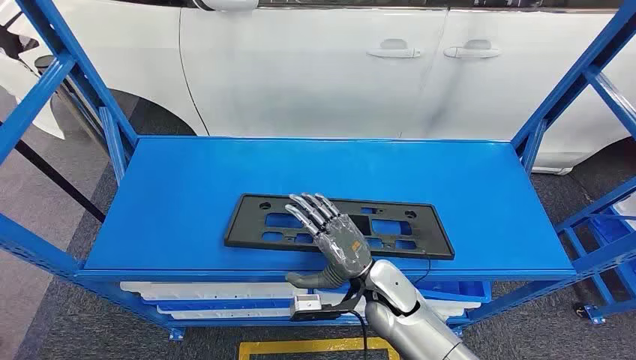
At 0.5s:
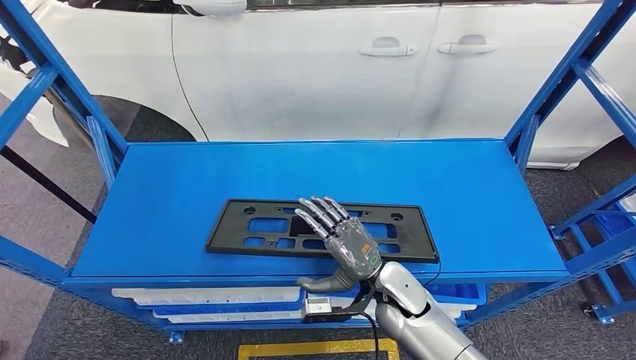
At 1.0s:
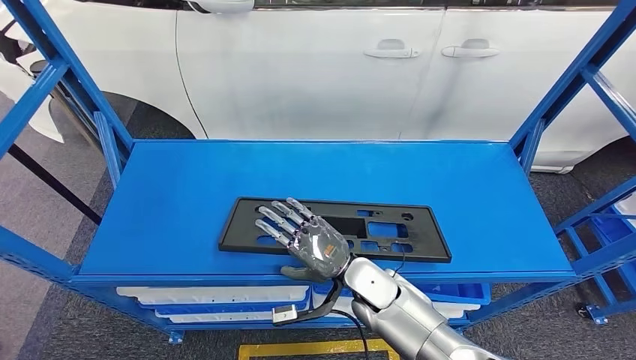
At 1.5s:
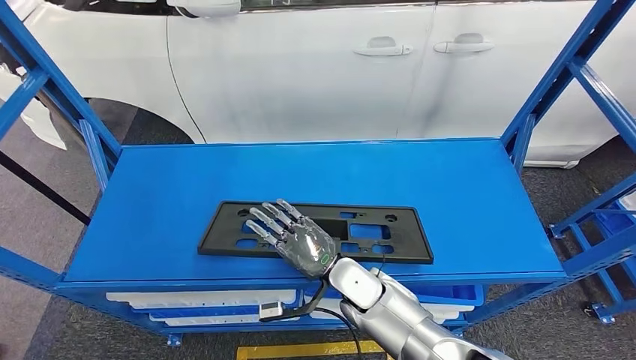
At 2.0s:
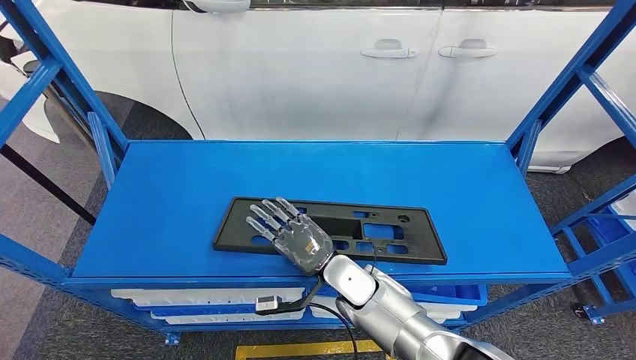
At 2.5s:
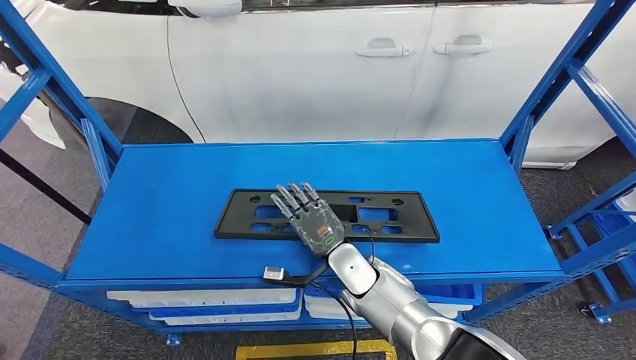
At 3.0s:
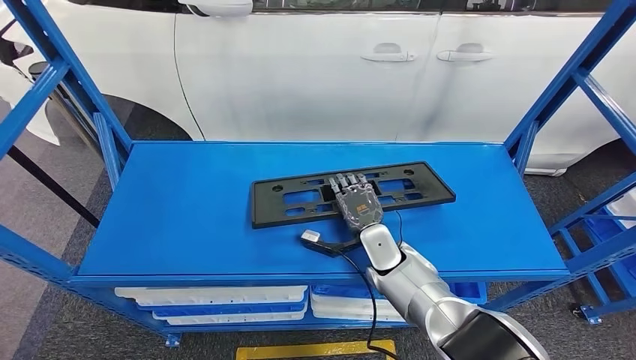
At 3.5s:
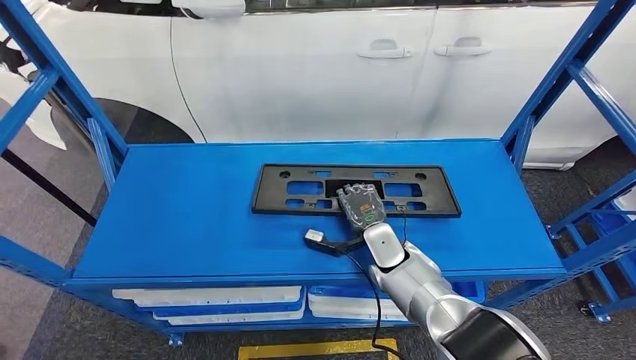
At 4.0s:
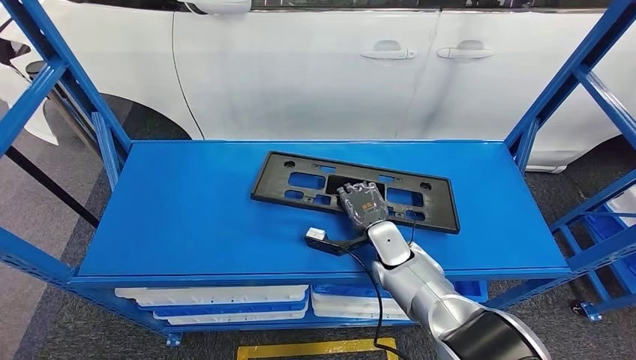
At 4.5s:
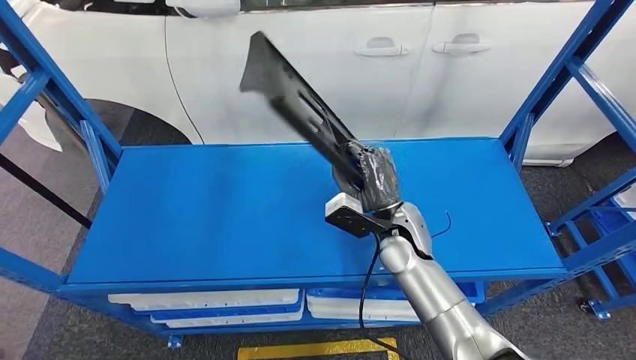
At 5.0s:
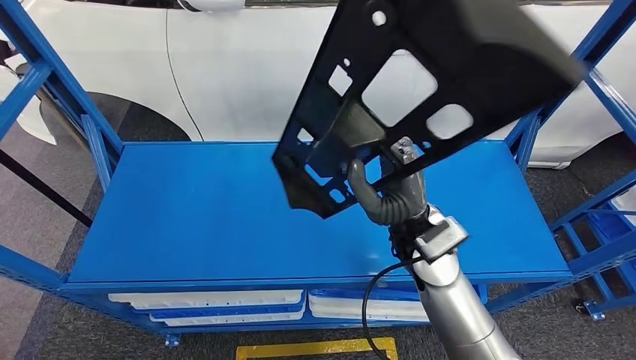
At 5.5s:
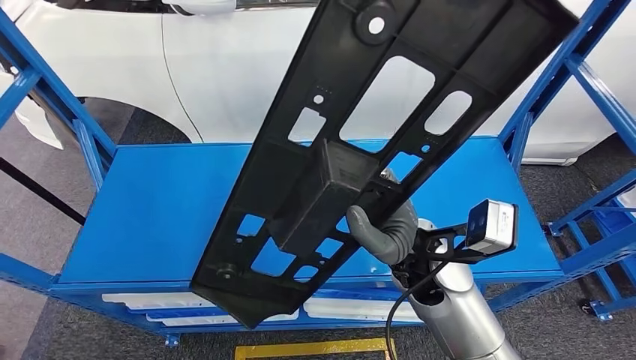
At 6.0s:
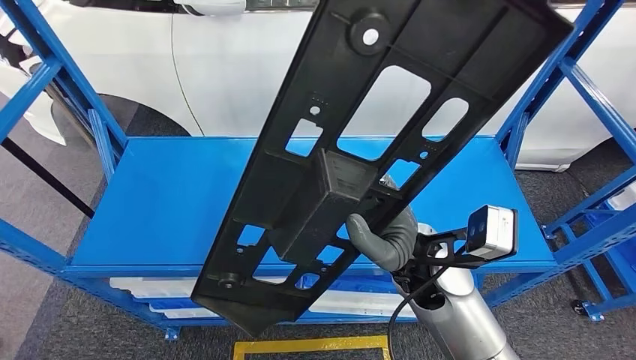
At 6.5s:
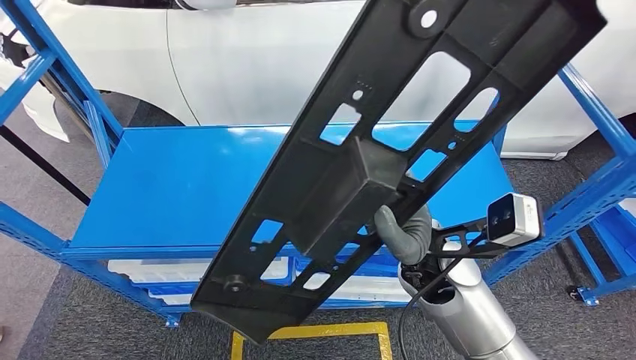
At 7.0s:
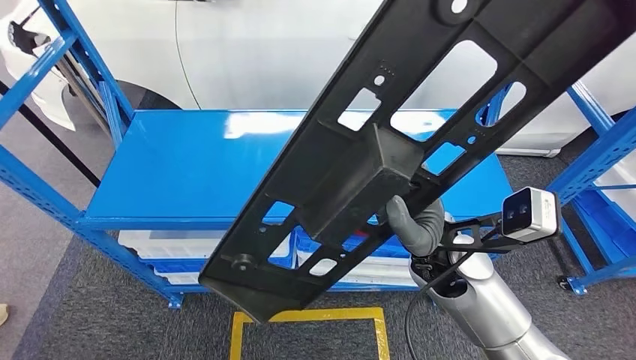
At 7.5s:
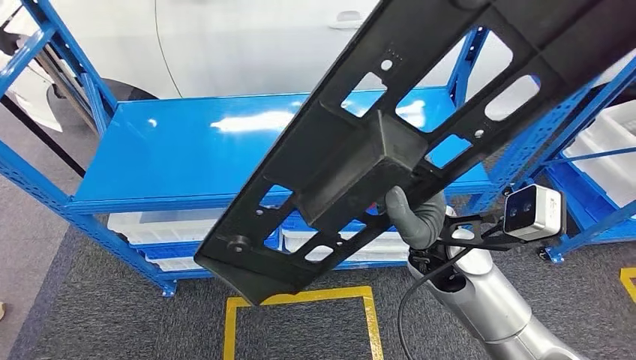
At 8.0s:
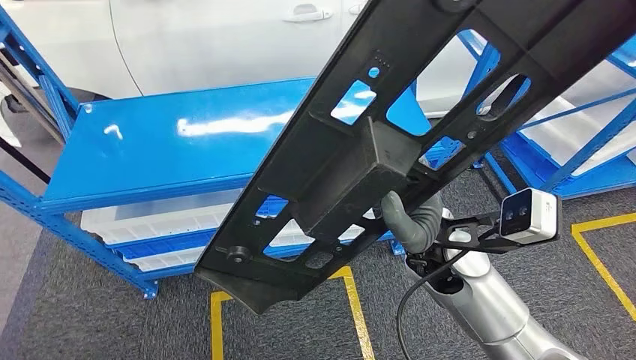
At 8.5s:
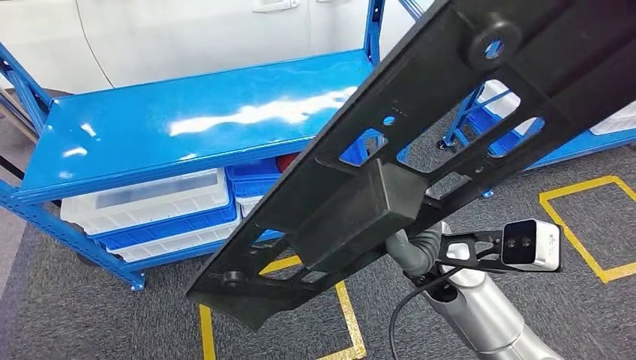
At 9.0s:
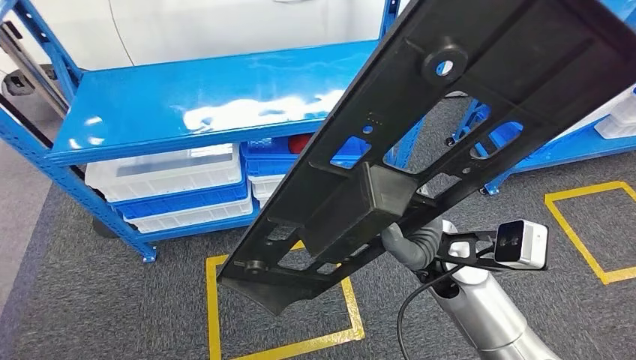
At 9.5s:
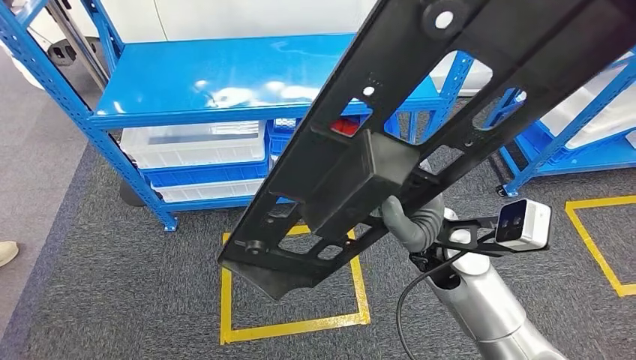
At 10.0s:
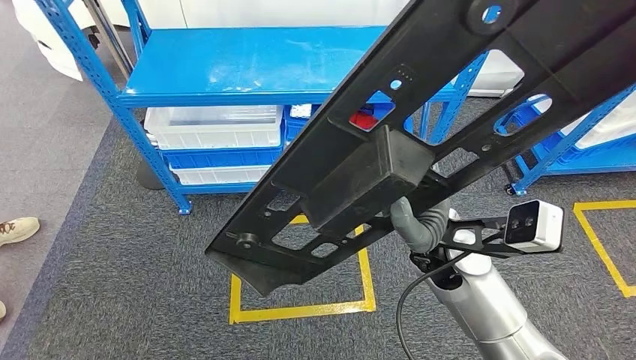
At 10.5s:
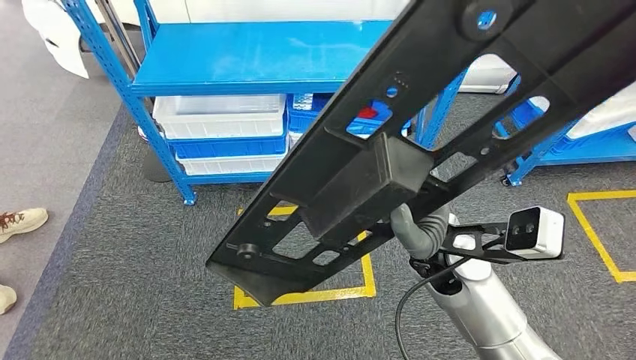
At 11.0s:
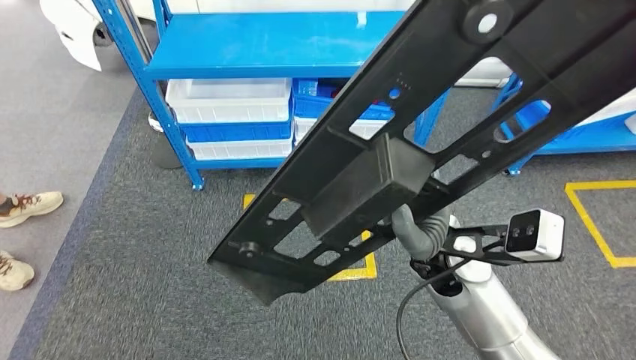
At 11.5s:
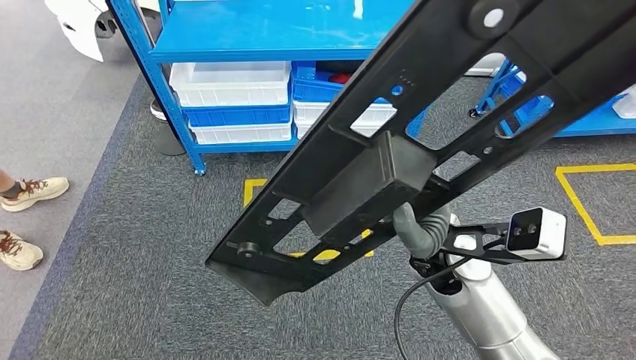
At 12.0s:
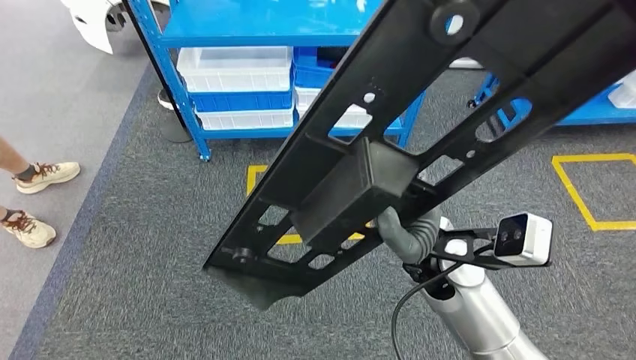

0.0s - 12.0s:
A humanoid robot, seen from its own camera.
Step, 0.0s - 4.5s: Pick up the large material from the shelf.

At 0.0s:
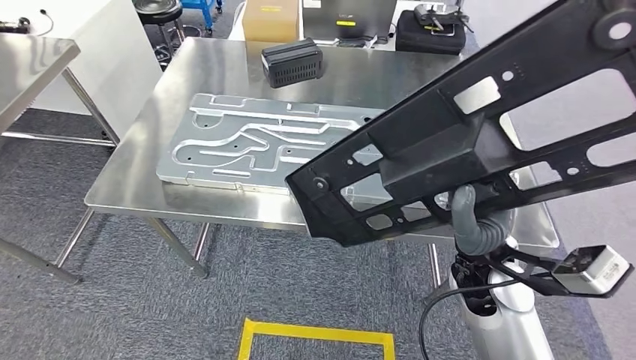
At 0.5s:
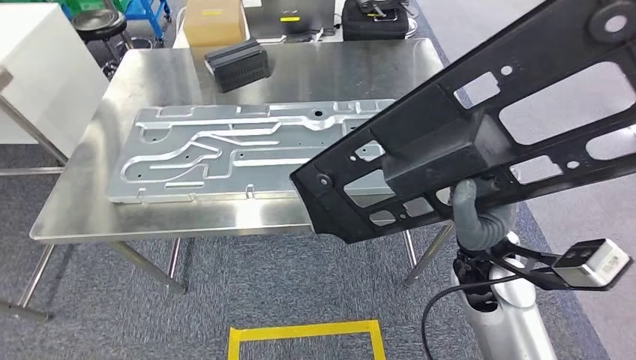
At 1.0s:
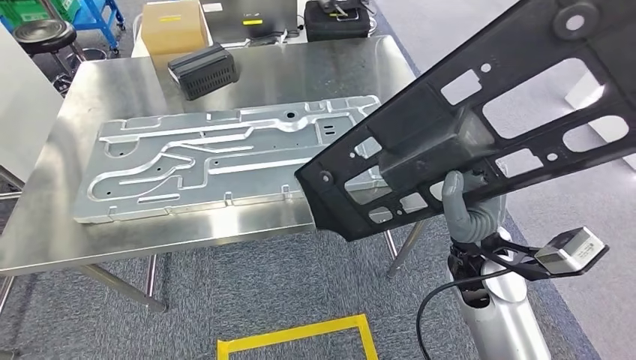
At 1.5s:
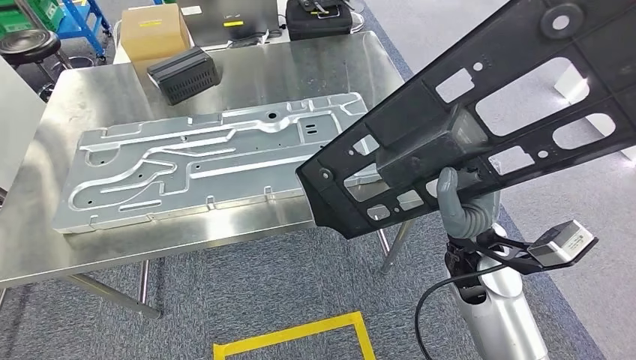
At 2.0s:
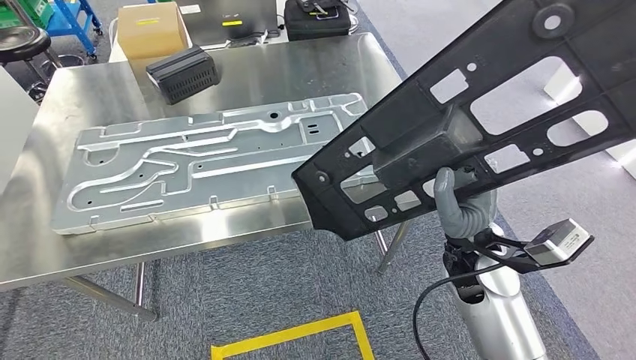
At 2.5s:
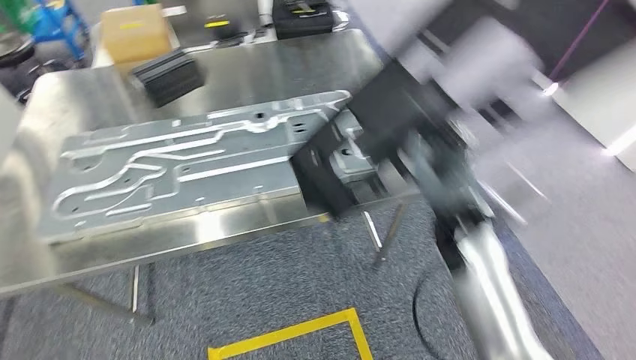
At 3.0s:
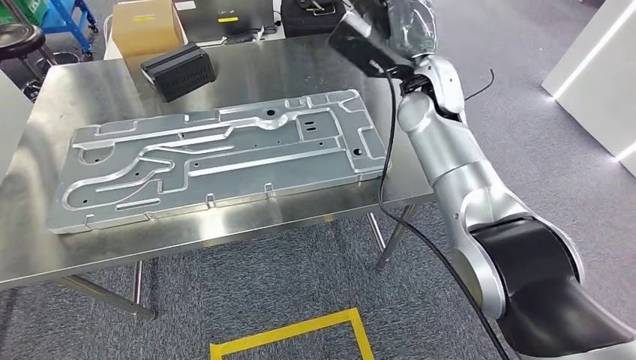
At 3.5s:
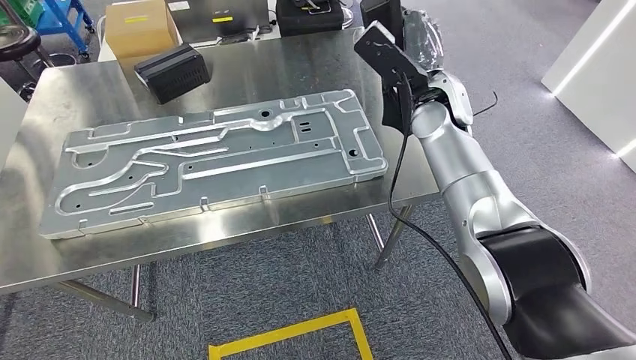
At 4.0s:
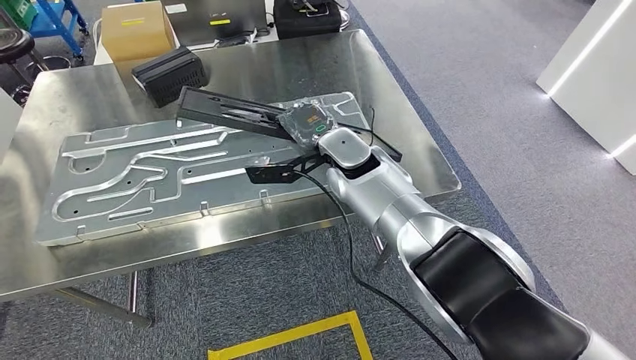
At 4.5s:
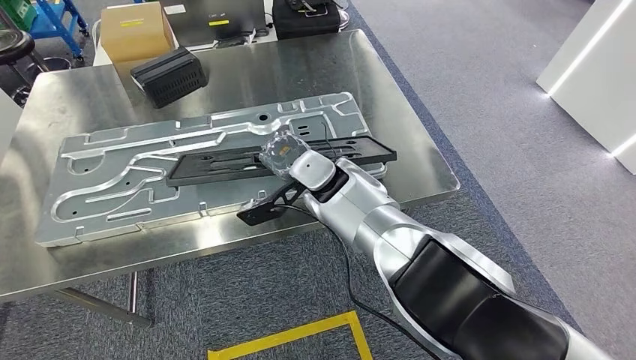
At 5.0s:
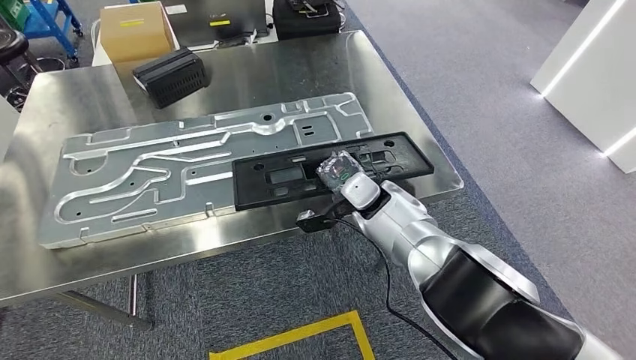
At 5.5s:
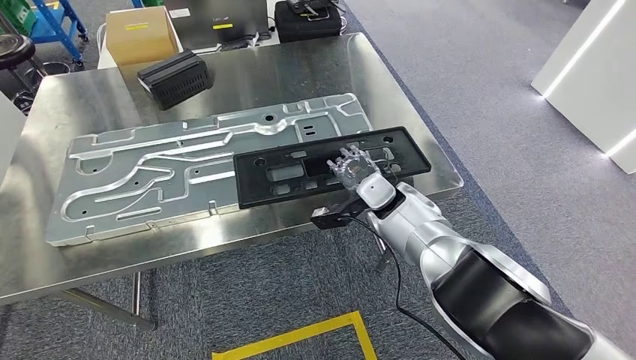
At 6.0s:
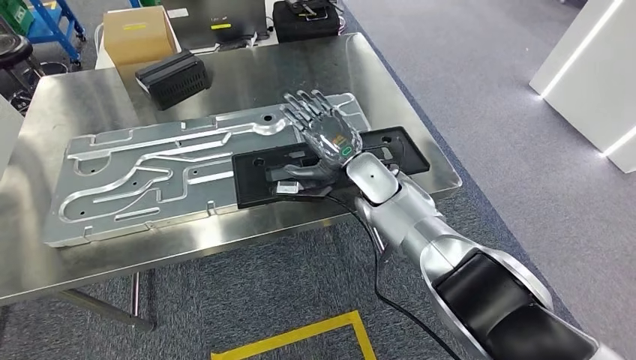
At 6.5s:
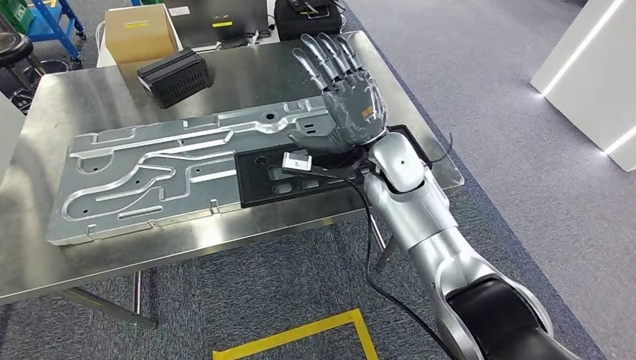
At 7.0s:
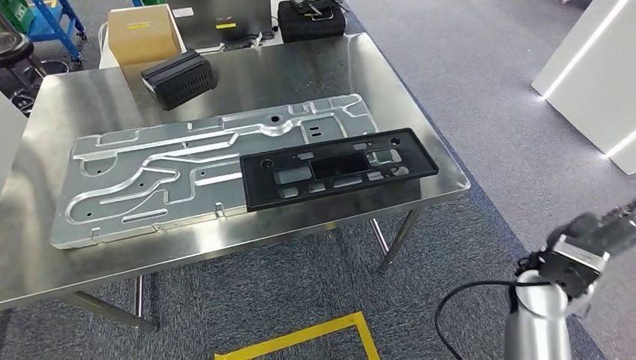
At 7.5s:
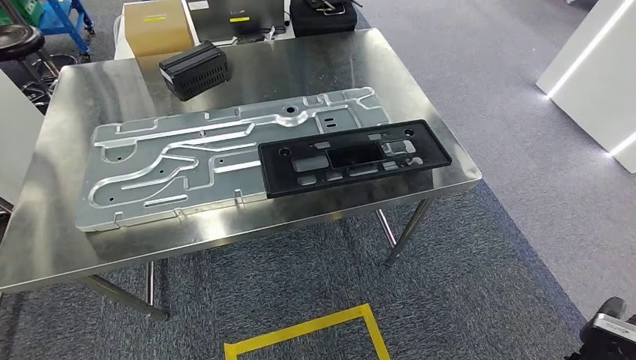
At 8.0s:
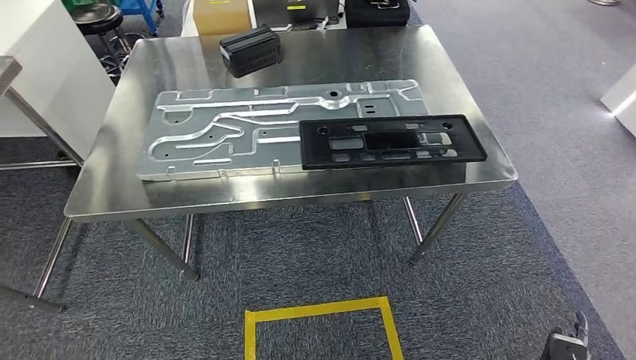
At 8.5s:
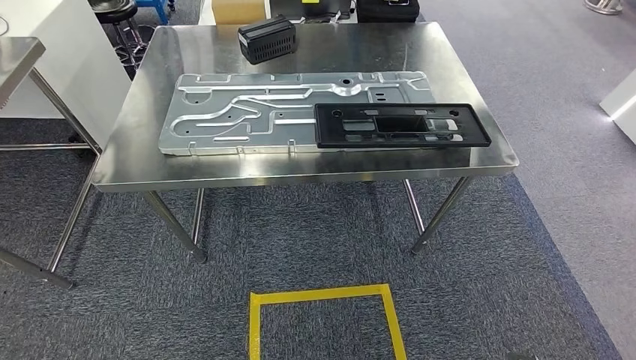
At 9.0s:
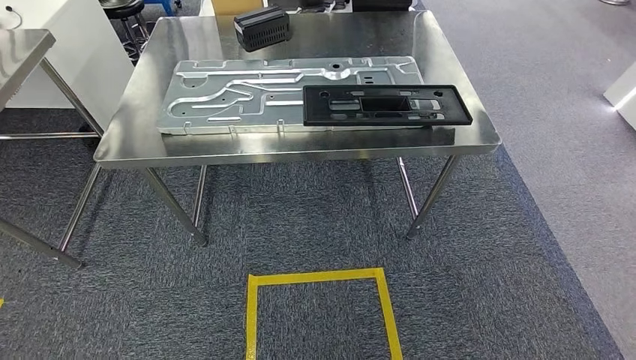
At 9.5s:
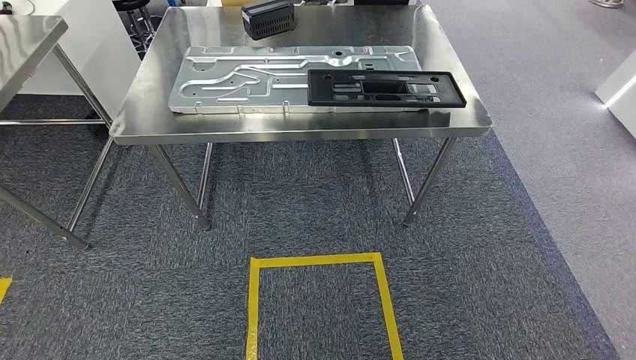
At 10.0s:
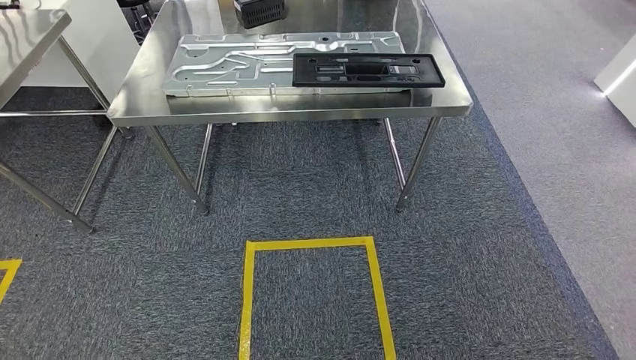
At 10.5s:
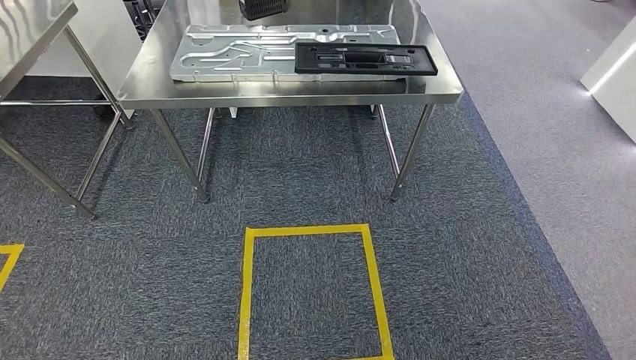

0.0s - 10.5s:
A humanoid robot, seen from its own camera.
Step, 0.0s - 3.0s: Move the large material to the workbench.
Step, 3.5s - 6.5s: Insert the large material into the corresponding slot on the workbench.
Step, 7.0s - 10.5s: Move to the initial position of the shelf.
